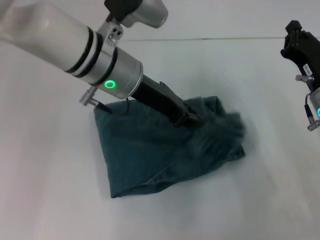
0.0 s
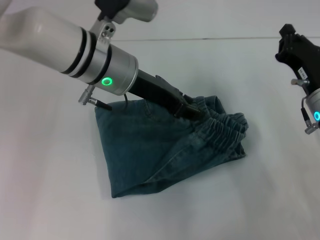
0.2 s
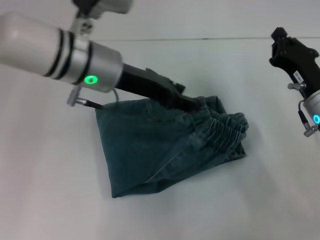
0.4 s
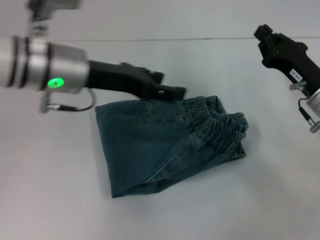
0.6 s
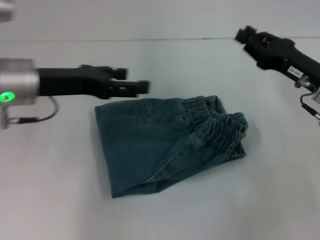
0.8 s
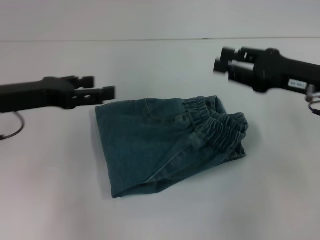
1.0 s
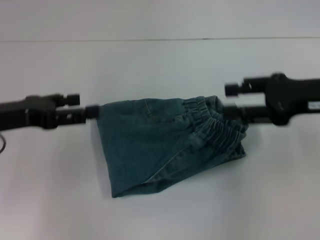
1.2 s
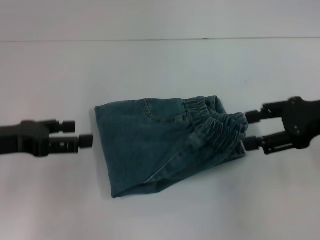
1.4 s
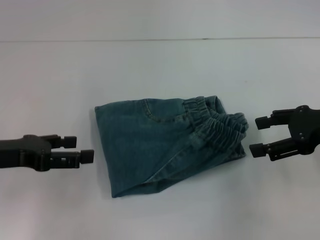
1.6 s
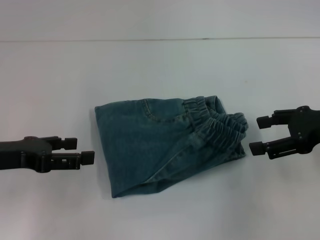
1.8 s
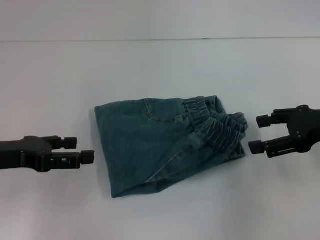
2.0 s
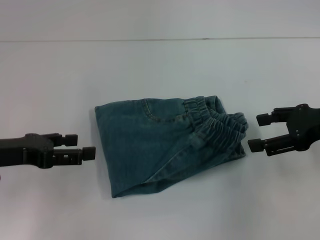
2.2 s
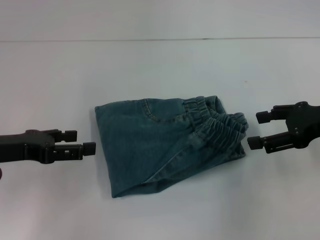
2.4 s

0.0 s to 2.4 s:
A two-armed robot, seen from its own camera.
0.0 to 1.2 s: The left gripper shifts roughly 20 cm to the left, and opens up, while the right gripper heads upward, covering roughly 10 cm, and opens.
1.2 to 2.4 s: The right gripper opens up.
